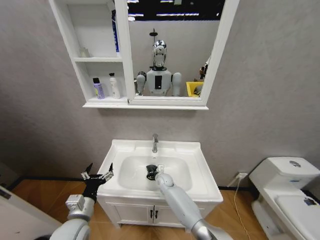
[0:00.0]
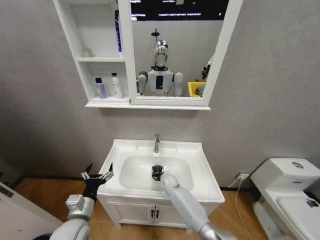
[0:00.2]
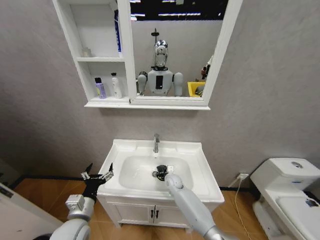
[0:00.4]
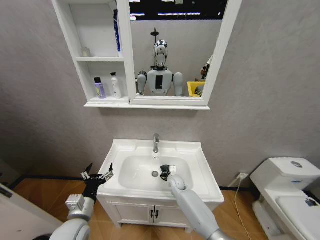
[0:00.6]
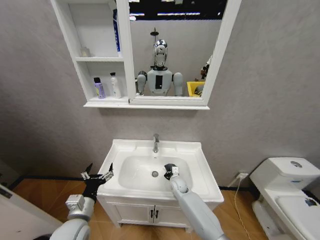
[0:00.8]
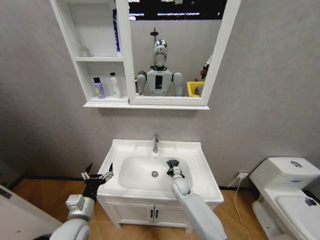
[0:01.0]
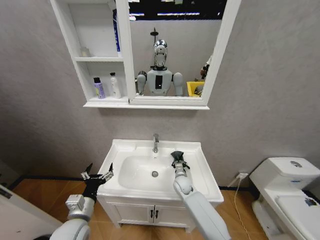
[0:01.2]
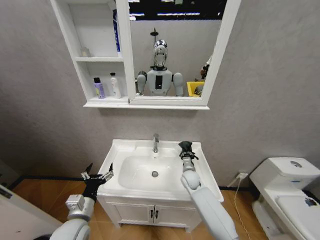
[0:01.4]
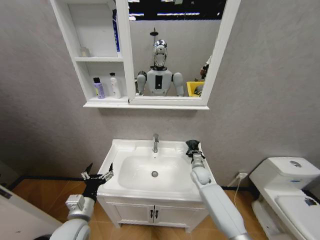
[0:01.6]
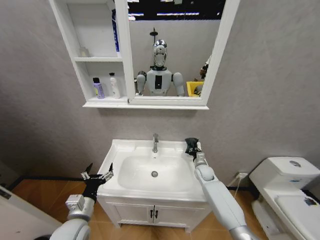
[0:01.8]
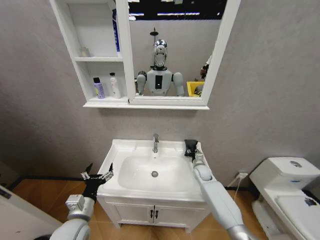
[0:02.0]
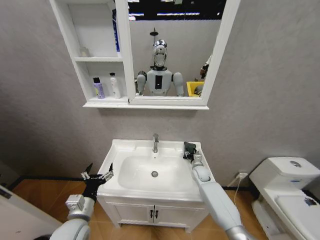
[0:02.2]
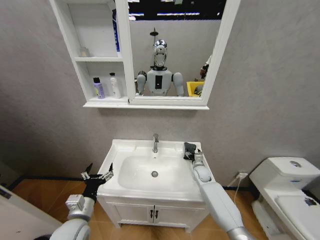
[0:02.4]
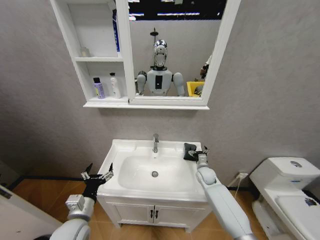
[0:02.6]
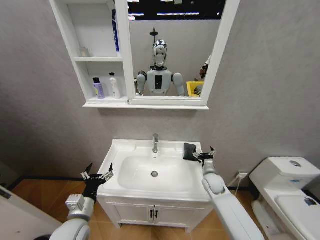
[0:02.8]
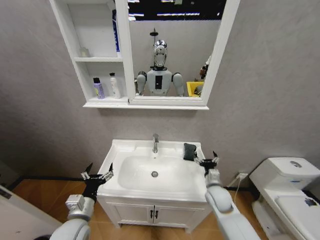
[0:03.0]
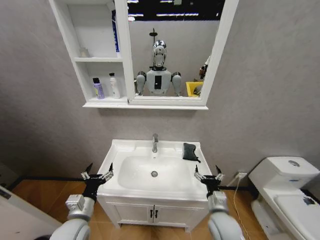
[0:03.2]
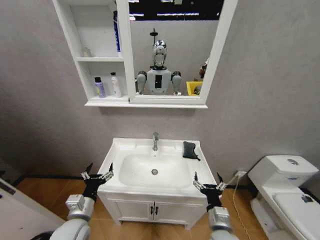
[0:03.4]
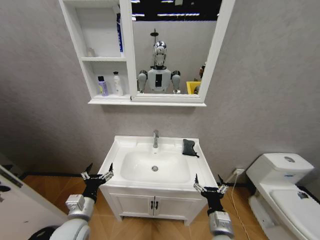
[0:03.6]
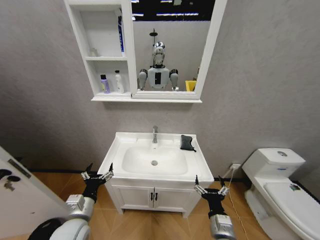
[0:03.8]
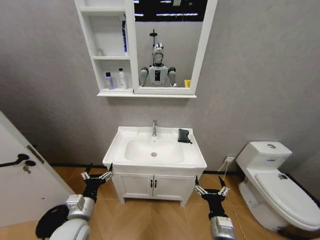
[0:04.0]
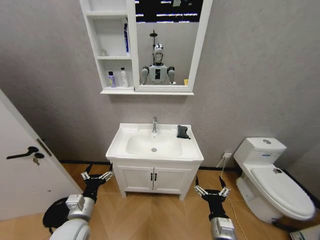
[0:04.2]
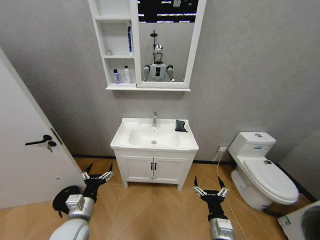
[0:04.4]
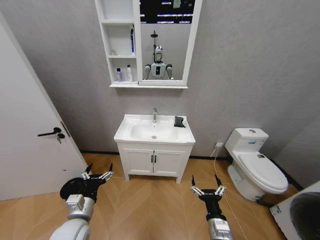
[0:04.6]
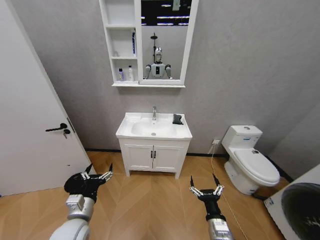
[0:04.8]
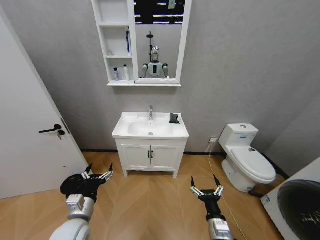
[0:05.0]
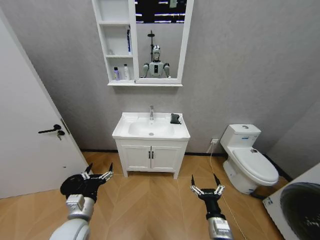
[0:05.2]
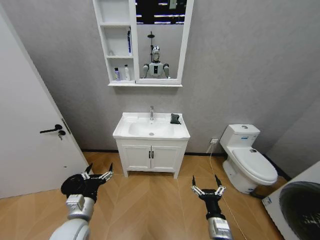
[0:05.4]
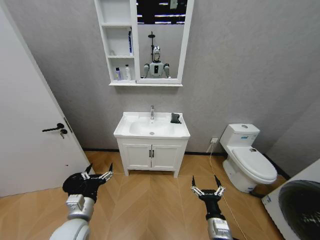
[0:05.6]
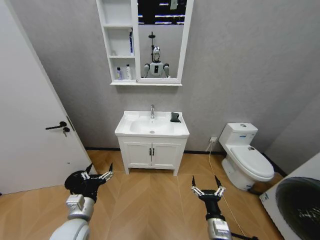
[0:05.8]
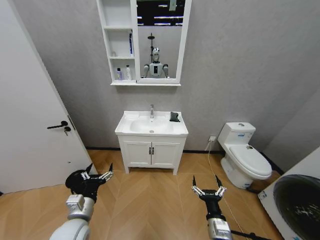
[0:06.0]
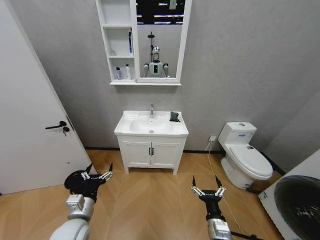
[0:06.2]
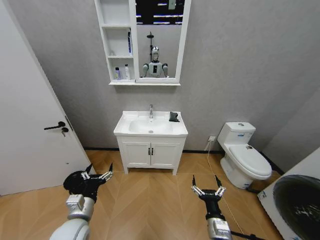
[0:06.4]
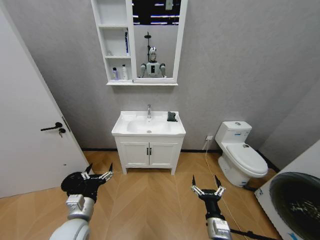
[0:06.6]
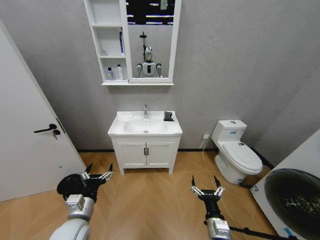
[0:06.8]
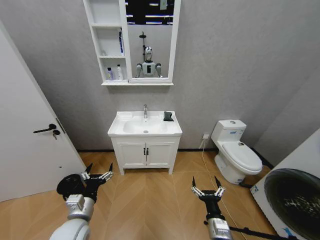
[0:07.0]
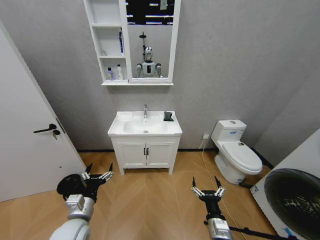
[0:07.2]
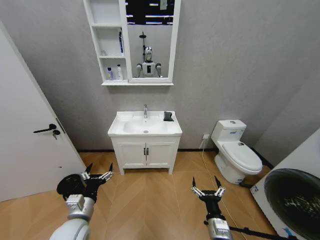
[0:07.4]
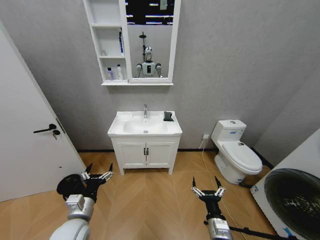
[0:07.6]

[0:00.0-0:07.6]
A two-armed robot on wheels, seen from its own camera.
Task of the whole recording: Move facial cleanser and shampoo from washbasin to cabinet, then wipe washbasin with towel.
0:00.0 to 0:01.6: The right gripper goes approximately 20 cm to the right and upward.
0:01.6 to 0:03.0: The right gripper heads backward, covering approximately 15 cm, and opens up.
0:03.0 to 0:04.6: The right gripper travels backward by approximately 15 cm.
0:04.6 to 0:06.0: The grippers make only small movements.
0:06.0 to 0:07.6: Neither gripper changes place.

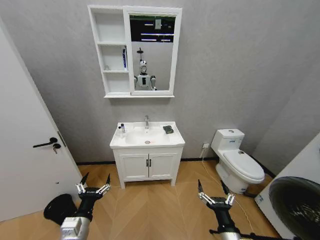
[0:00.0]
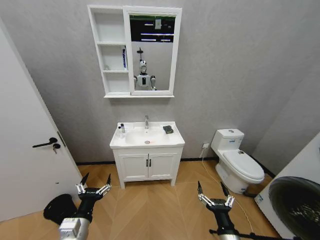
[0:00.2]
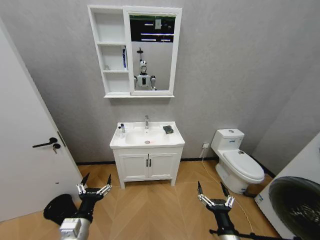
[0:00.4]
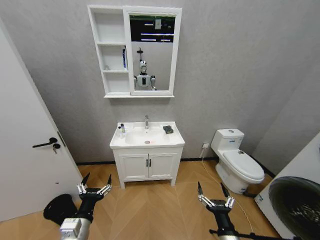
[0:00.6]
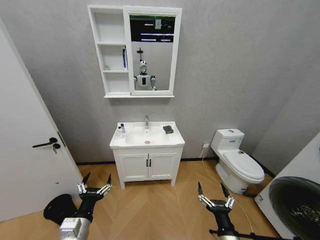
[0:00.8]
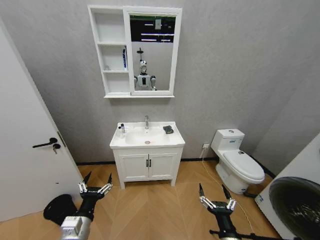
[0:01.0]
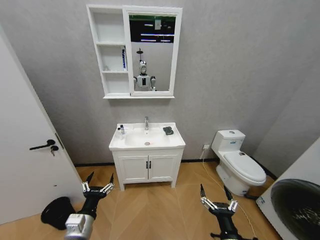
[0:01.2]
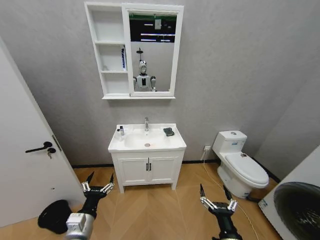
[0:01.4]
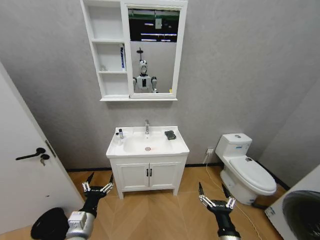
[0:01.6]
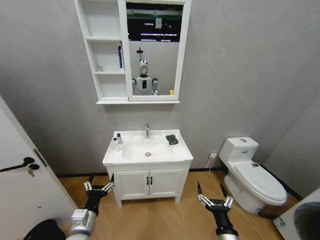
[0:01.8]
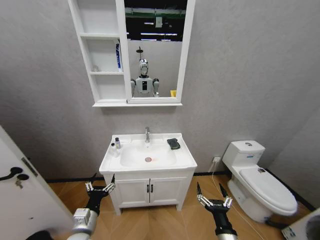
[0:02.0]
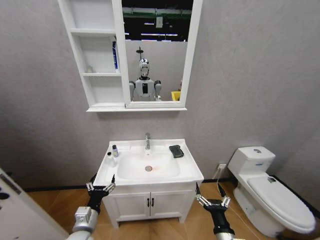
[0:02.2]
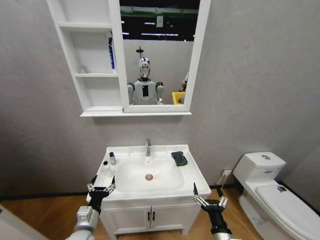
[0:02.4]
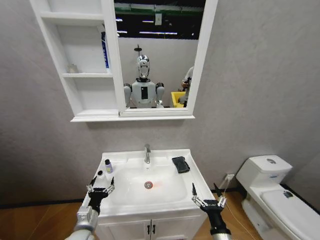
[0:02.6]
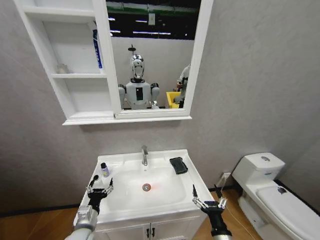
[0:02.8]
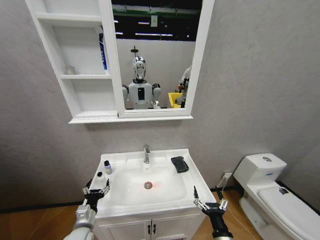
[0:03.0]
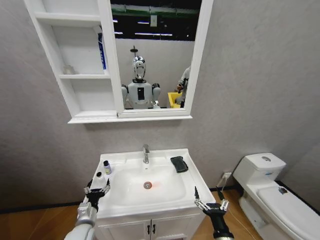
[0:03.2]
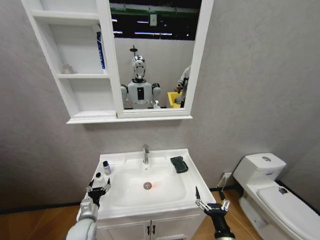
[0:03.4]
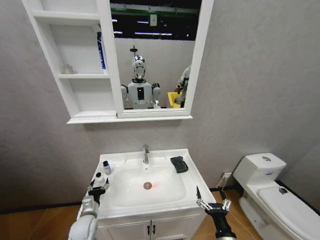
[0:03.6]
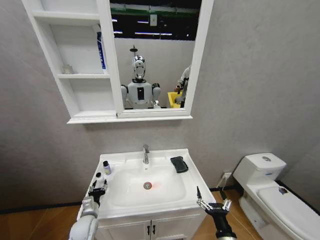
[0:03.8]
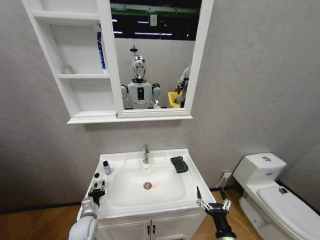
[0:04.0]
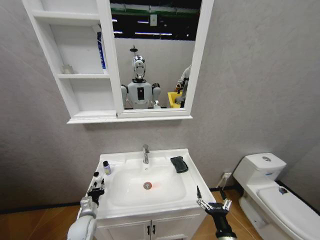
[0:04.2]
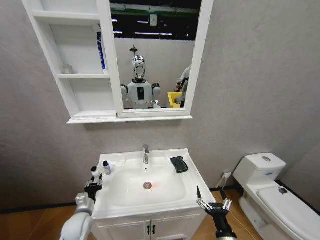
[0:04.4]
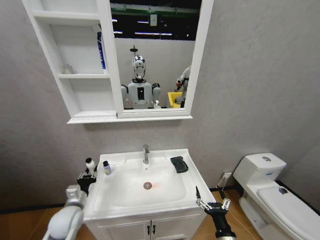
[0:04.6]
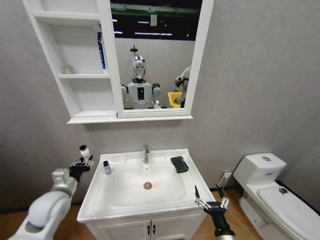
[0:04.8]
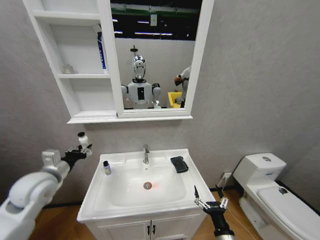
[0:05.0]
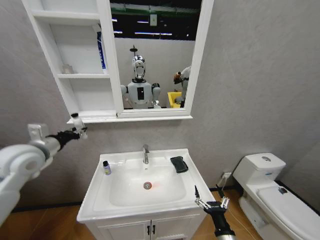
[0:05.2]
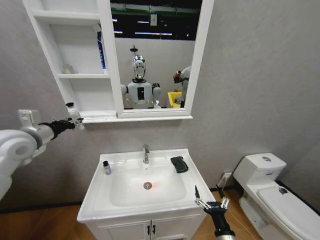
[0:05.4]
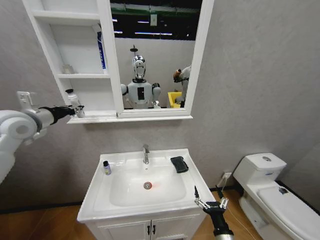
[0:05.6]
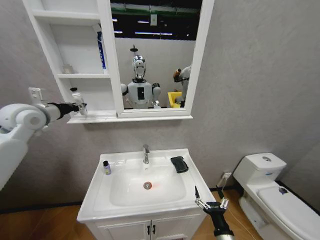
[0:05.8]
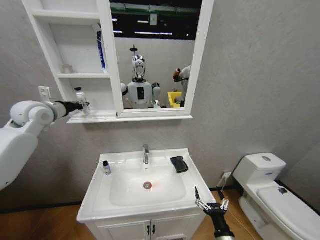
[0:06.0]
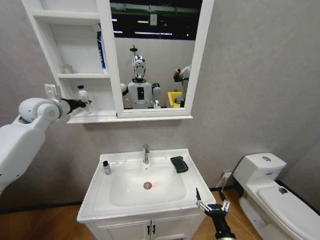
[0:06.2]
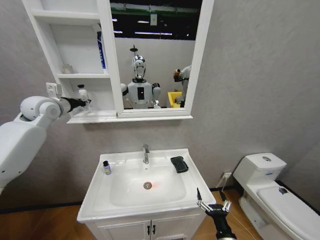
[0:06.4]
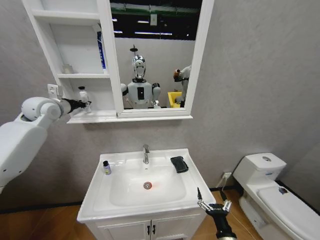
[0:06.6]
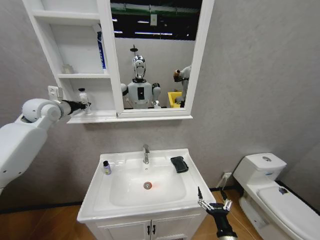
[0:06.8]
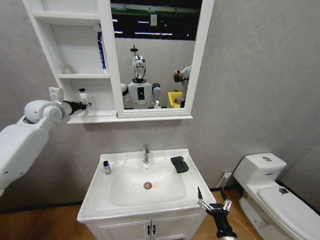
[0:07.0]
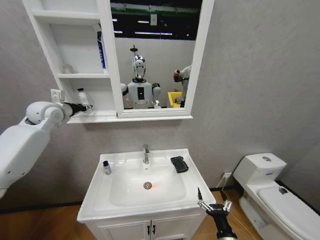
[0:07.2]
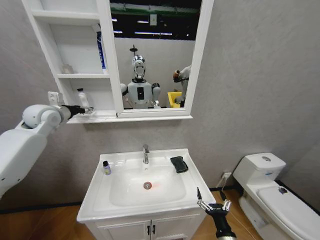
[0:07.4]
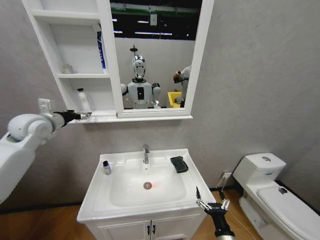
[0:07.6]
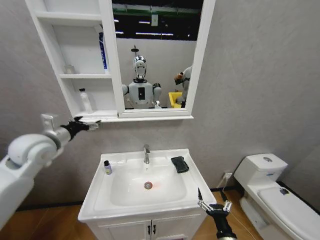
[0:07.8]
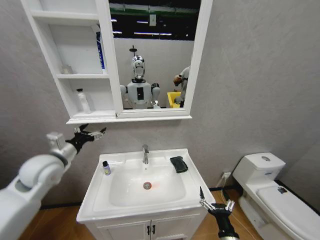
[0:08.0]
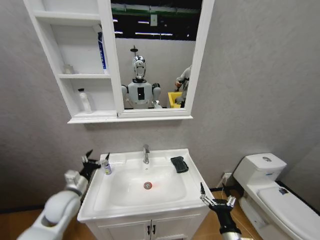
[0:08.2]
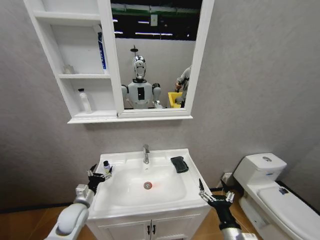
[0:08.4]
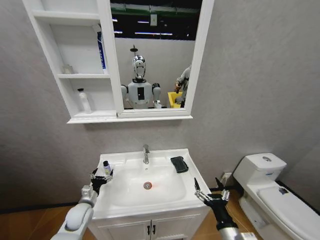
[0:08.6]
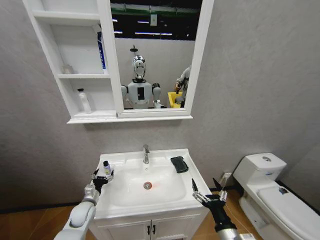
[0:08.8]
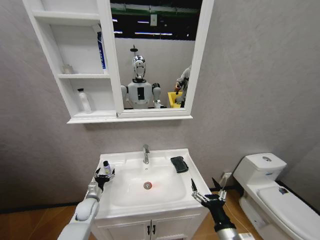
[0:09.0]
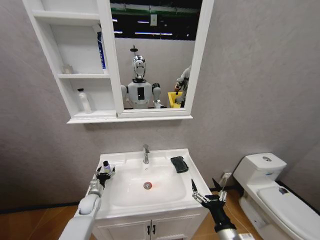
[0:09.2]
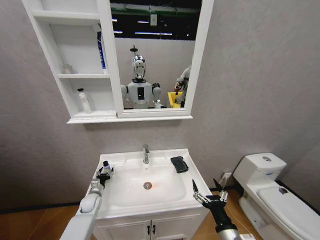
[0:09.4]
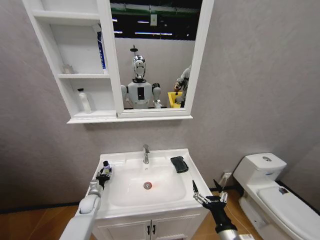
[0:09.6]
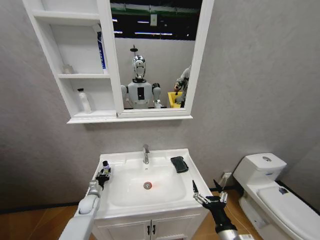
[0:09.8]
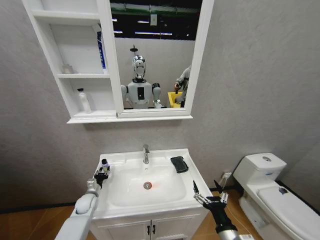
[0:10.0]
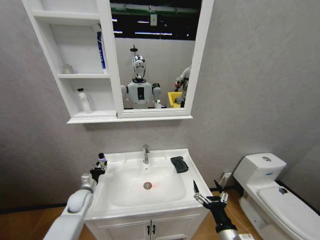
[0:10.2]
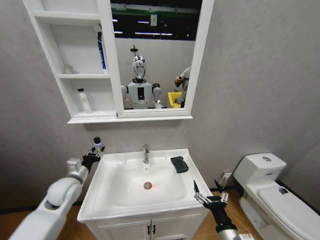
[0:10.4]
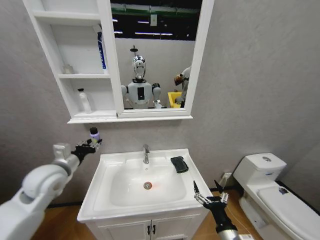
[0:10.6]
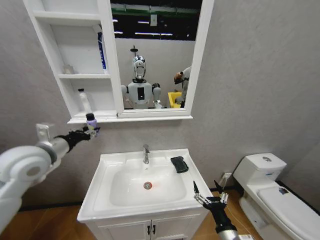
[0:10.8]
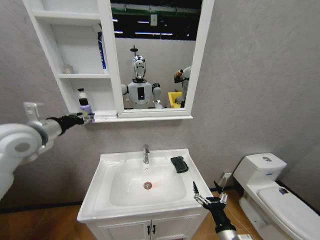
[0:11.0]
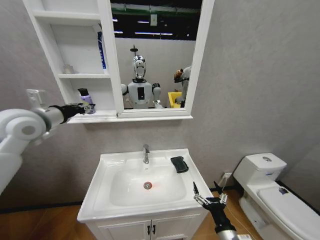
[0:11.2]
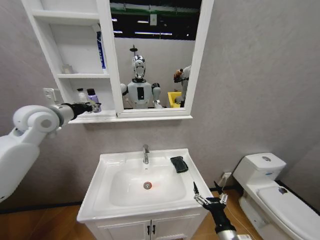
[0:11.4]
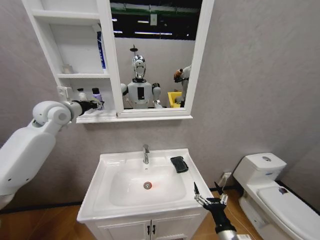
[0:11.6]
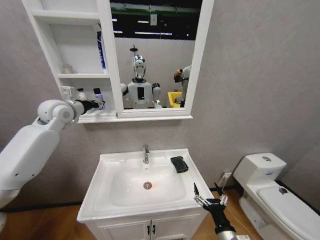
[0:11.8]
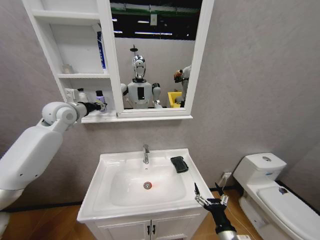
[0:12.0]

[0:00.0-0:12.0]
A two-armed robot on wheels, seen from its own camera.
Task of the whole recording: Move facial cleanser and shampoo from washbasin to cabinet, then wipe washbasin with towel.
0:01.6 to 0:03.0: The left gripper heads downward, covering about 5 cm.
0:03.0 to 0:04.4: The left gripper moves forward, some 5 cm, and closes its fingers.
0:04.4 to 0:06.0: The left gripper travels upward by roughly 40 cm.
0:06.0 to 0:07.6: The left gripper opens its fingers.
0:07.6 to 0:09.0: The left gripper goes about 40 cm downward. The right gripper shifts some 10 cm upward.
0:09.0 to 0:10.4: The left gripper heads upward, covering some 20 cm, and closes up.
0:10.4 to 0:12.0: The left gripper moves upward and forward, some 30 cm.

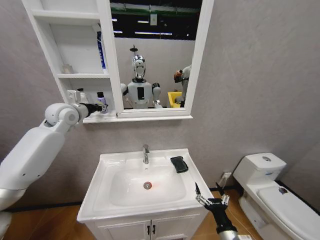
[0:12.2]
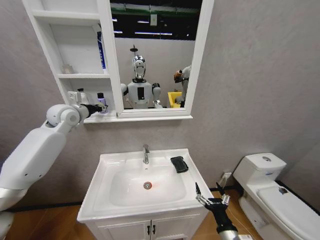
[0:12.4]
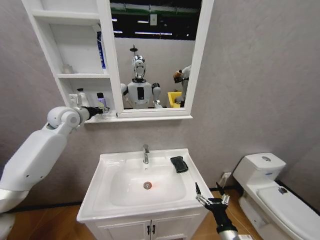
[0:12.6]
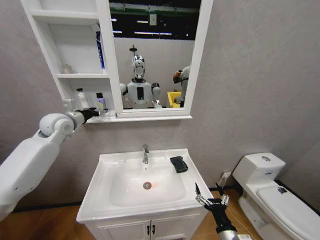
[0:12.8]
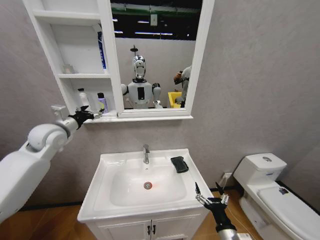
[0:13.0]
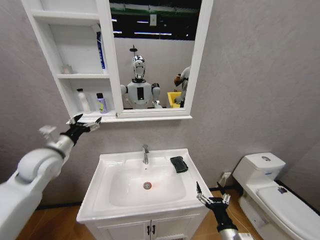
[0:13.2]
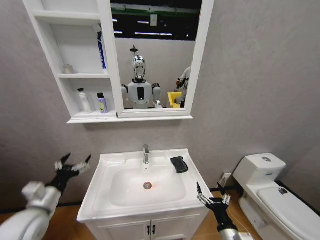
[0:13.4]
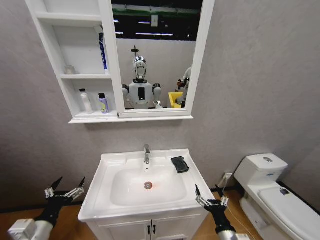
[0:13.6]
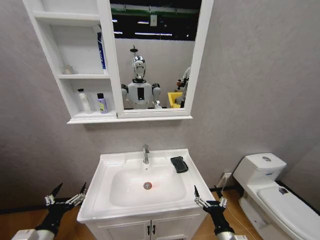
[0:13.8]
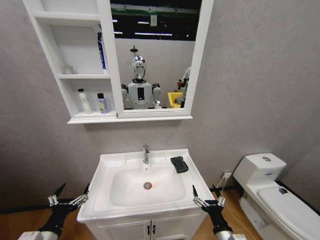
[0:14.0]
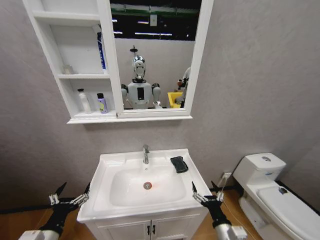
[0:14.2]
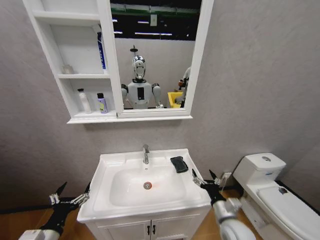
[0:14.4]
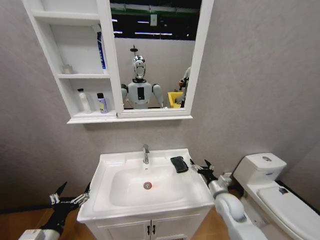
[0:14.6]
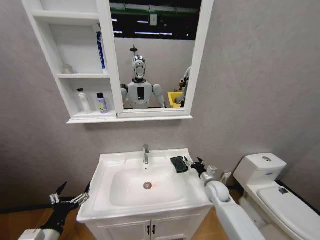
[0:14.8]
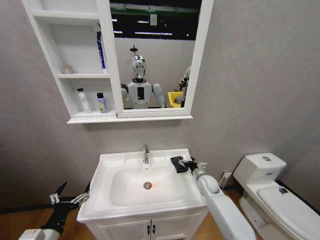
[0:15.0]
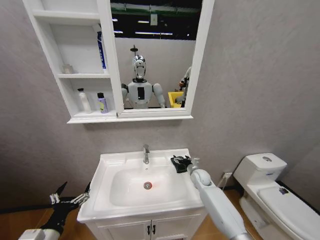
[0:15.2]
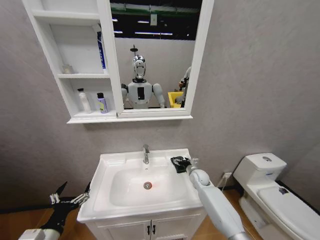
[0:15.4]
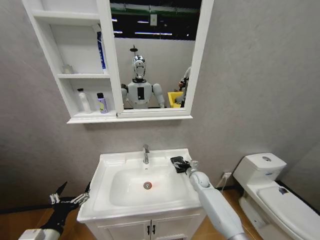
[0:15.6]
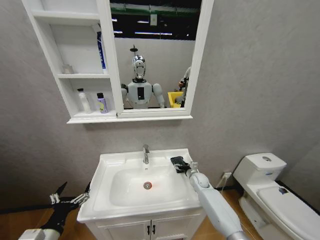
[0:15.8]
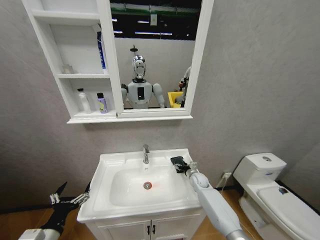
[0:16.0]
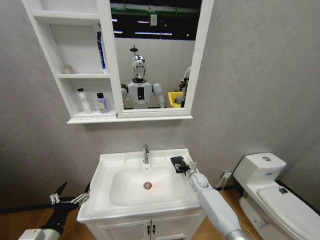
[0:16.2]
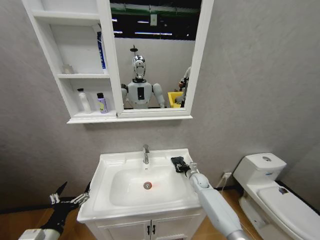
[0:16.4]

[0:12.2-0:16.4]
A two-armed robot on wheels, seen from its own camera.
Task of the whole recording: Move facial cleanser and shampoo from washbasin to cabinet, then wipe washbasin with towel.
0:12.2 to 0:13.6: The left gripper goes roughly 40 cm backward and downward, and opens.
0:13.6 to 0:15.0: The right gripper heads forward, covering roughly 30 cm.
0:15.0 to 0:16.4: The right gripper travels forward by roughly 5 cm, and closes.
